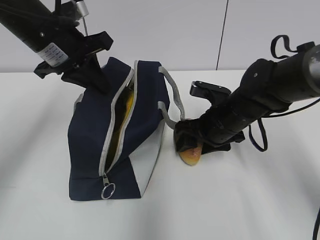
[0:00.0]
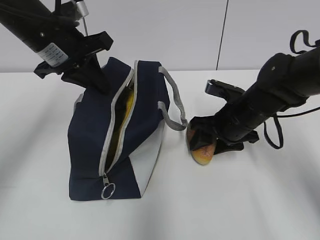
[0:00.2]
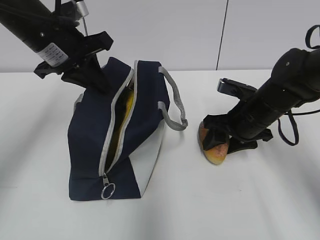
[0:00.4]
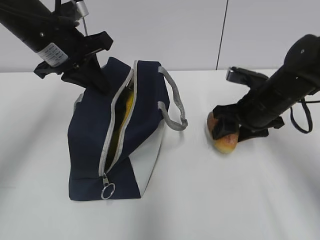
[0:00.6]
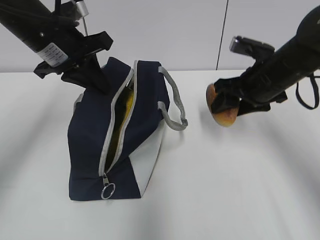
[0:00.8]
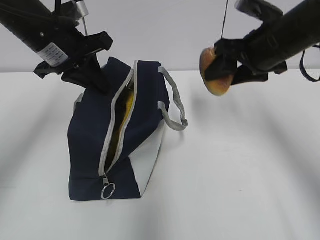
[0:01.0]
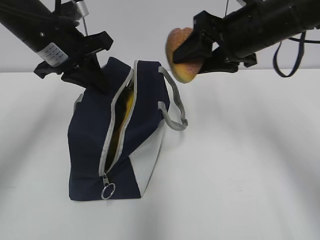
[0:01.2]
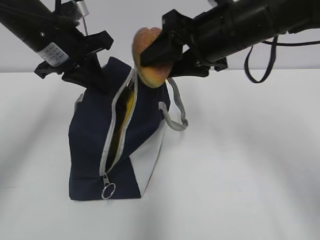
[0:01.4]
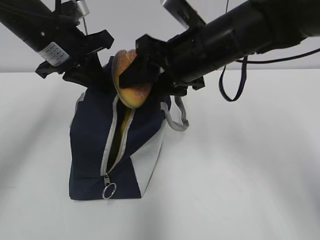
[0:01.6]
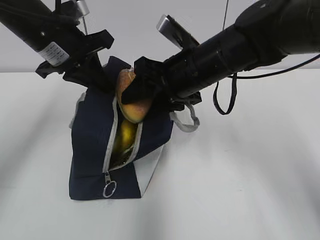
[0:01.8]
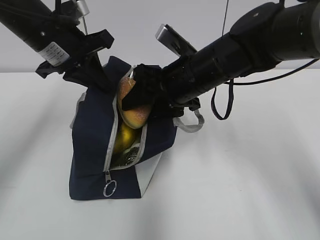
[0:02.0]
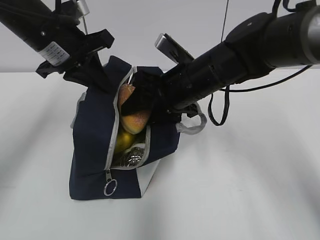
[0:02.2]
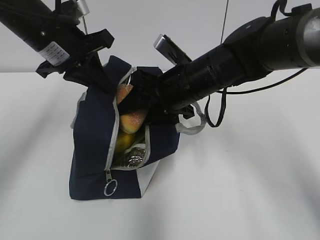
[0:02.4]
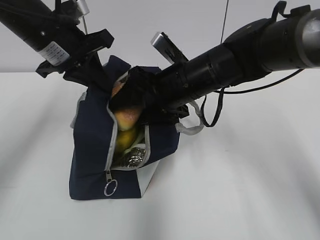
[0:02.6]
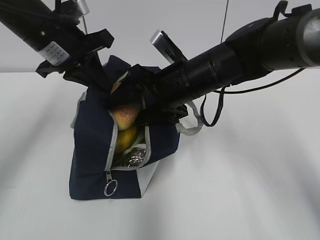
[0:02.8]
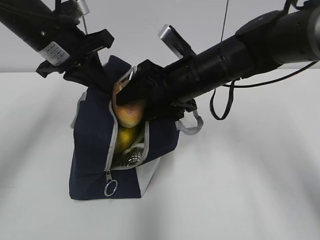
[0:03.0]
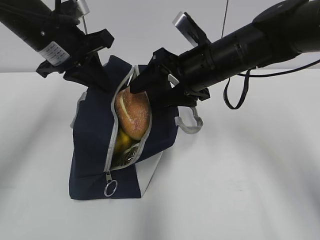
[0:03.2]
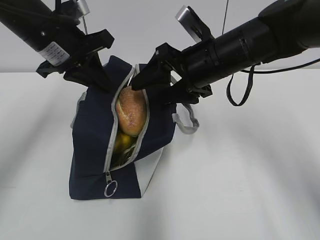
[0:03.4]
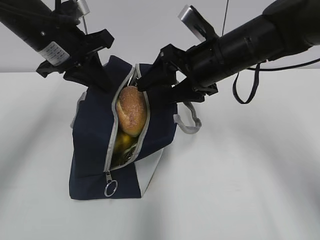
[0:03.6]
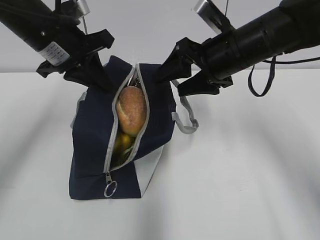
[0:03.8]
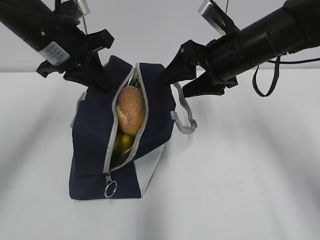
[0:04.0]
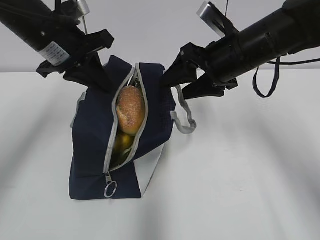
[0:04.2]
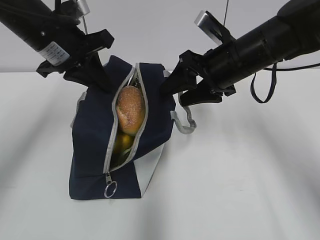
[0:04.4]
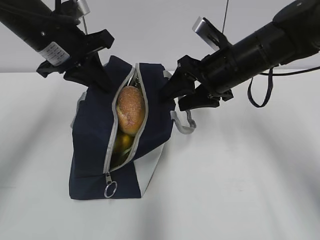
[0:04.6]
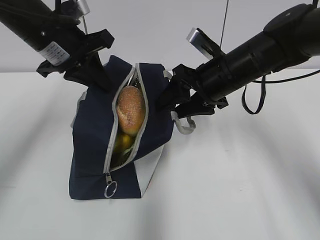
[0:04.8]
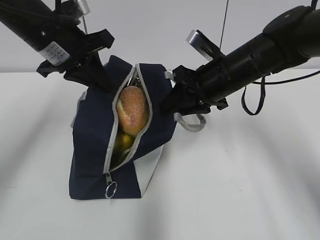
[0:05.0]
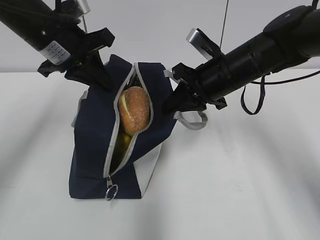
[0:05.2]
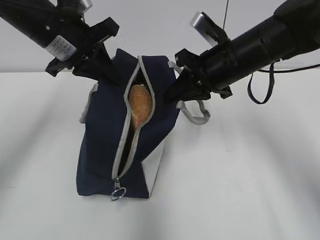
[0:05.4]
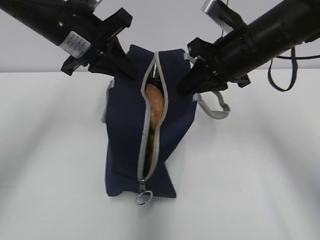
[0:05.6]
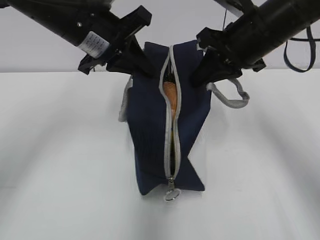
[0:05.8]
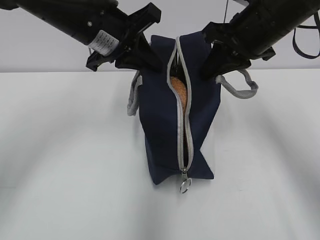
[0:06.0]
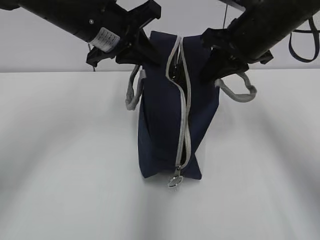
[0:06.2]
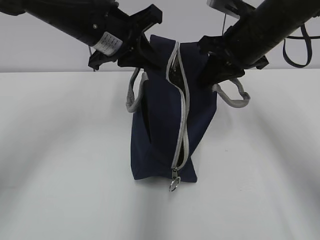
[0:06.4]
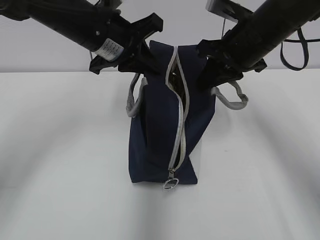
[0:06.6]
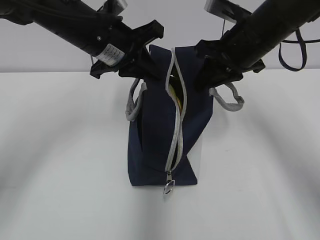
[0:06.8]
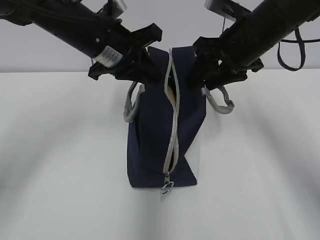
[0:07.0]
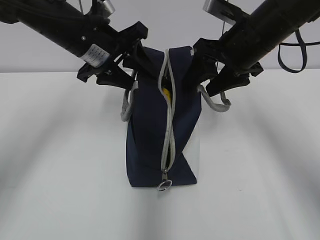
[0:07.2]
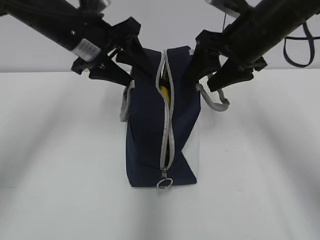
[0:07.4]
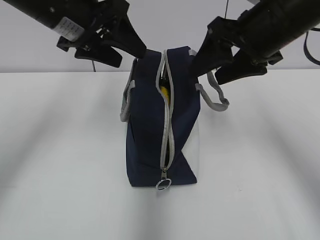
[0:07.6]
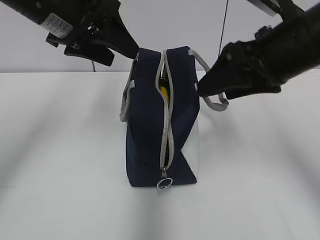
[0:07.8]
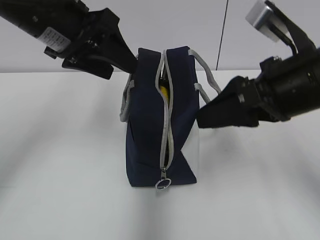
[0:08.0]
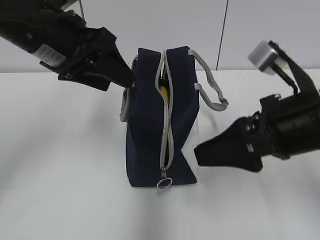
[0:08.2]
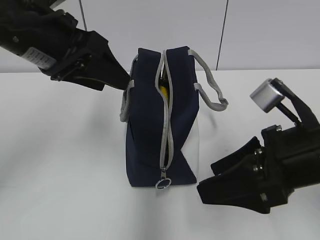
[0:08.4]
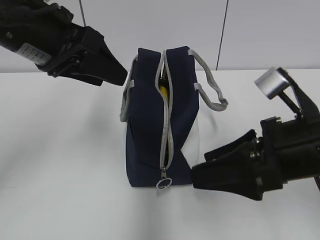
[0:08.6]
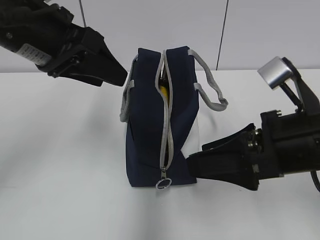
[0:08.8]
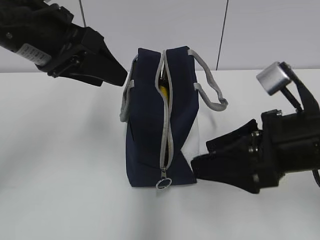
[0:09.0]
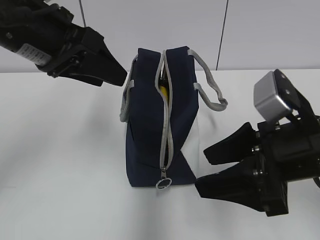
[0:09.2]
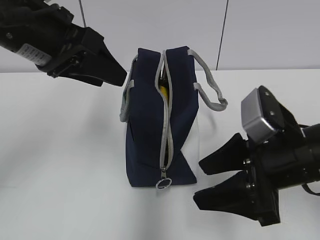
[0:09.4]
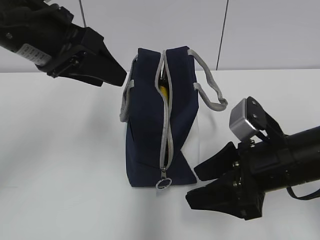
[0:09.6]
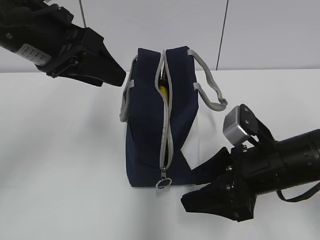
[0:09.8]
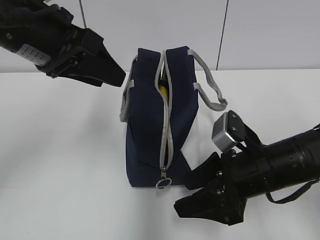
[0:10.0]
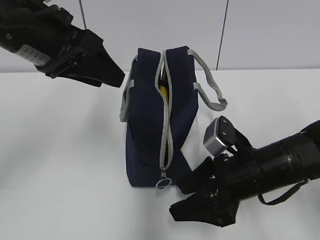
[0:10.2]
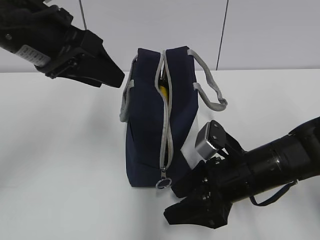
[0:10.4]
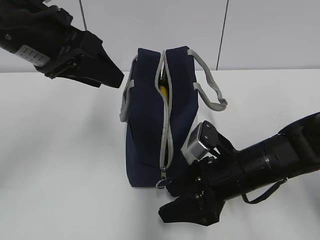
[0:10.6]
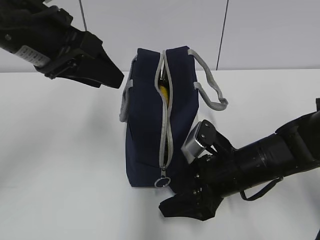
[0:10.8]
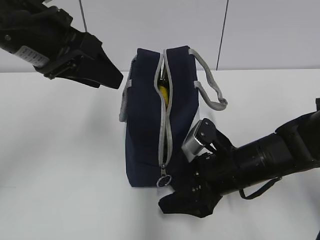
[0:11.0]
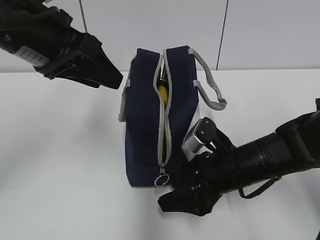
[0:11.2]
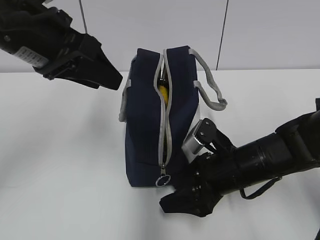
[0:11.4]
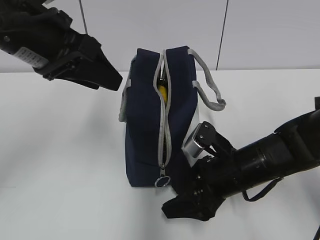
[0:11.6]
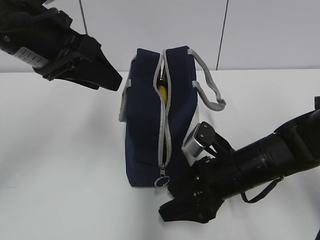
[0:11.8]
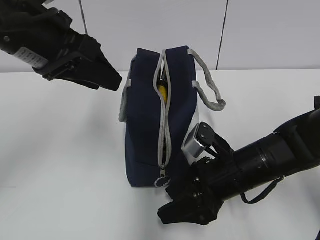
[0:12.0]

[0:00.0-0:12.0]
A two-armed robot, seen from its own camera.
0:00.0 to 0:01.6: The right gripper is displaced upward by roughly 15 cm.
0:01.6 to 0:03.0: The right gripper heads downward, covering approximately 5 cm.
0:03.0 to 0:04.4: The right gripper goes approximately 5 cm to the right.
0:04.4 to 0:06.0: The left gripper goes about 5 cm to the right. The right gripper is displaced upward by about 5 cm, and closes its fingers.
0:06.0 to 0:07.6: The left gripper opens its fingers. The right gripper opens its fingers.
0:07.6 to 0:09.0: The left gripper travels backward by roughly 5 cm. Meanwhile the right gripper heads backward and downward, covering roughly 15 cm.
0:09.0 to 0:10.4: The right gripper is displaced downward by about 10 cm.
0:10.4 to 0:12.0: The grippers move only a little.

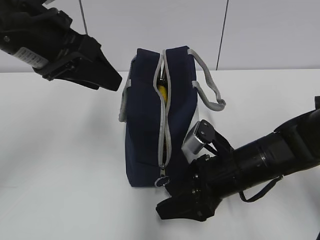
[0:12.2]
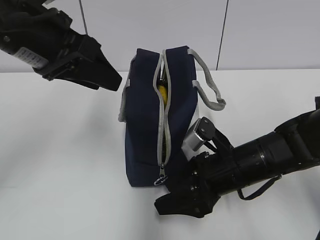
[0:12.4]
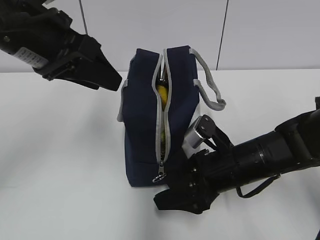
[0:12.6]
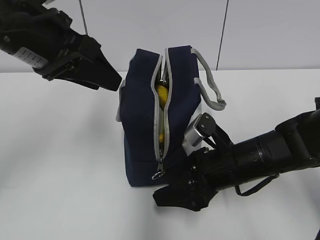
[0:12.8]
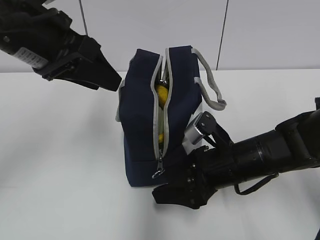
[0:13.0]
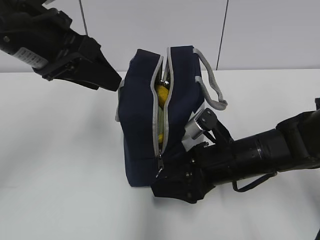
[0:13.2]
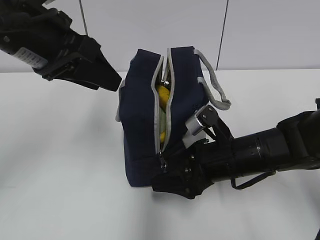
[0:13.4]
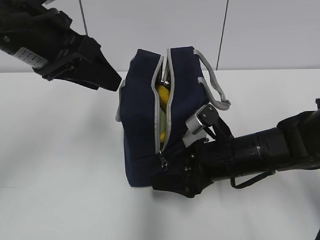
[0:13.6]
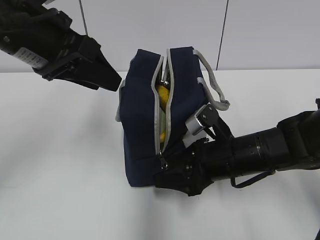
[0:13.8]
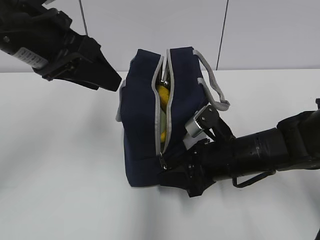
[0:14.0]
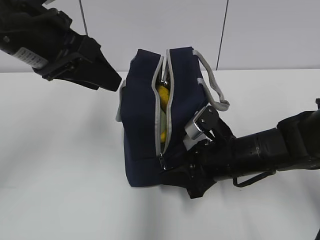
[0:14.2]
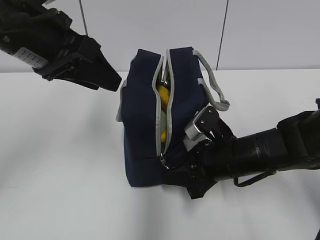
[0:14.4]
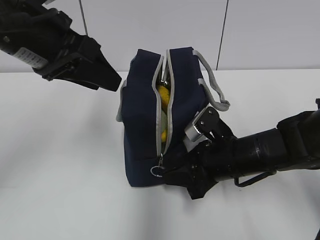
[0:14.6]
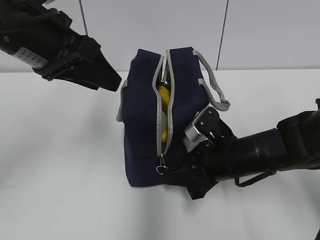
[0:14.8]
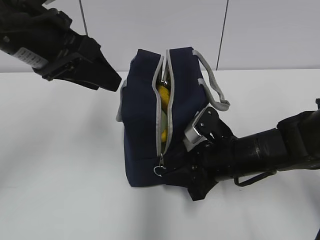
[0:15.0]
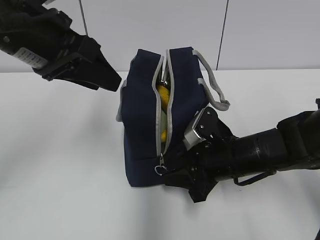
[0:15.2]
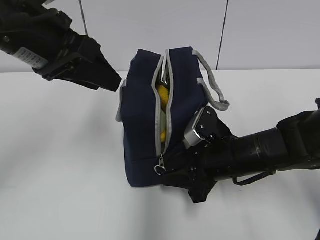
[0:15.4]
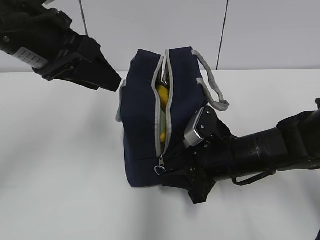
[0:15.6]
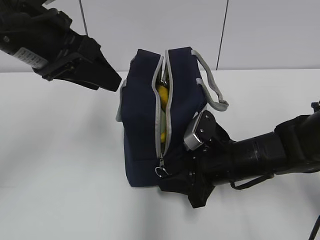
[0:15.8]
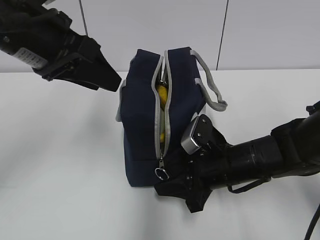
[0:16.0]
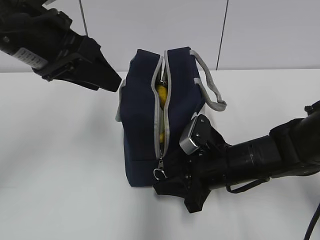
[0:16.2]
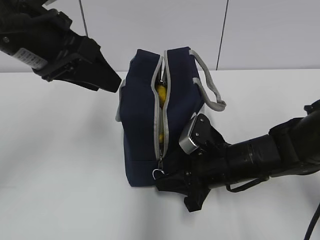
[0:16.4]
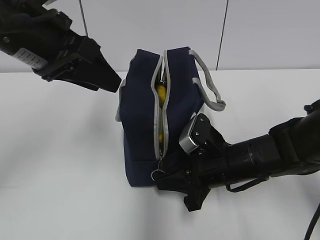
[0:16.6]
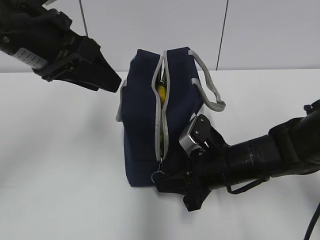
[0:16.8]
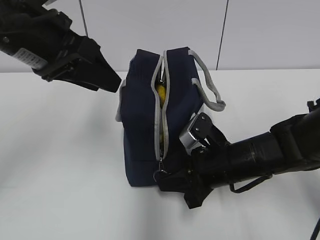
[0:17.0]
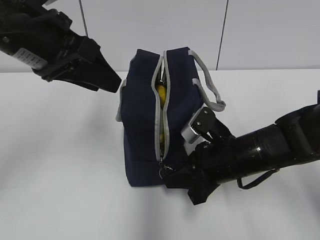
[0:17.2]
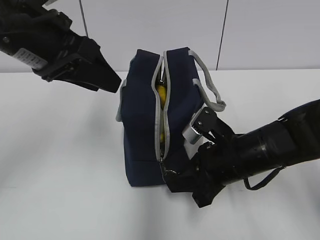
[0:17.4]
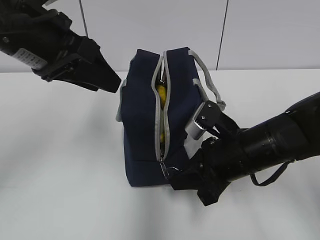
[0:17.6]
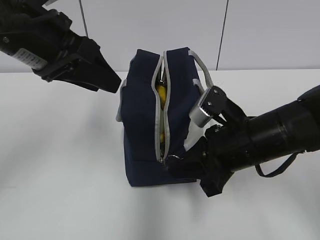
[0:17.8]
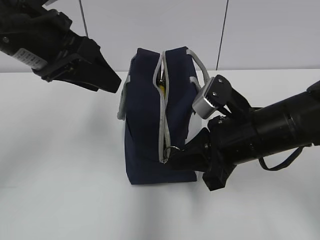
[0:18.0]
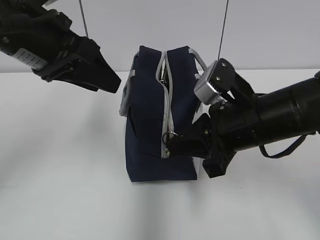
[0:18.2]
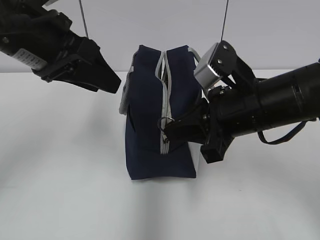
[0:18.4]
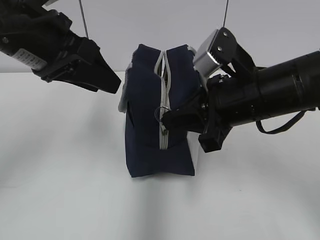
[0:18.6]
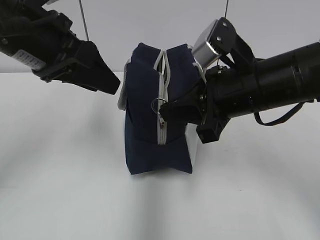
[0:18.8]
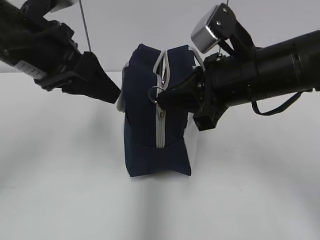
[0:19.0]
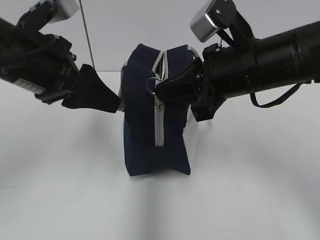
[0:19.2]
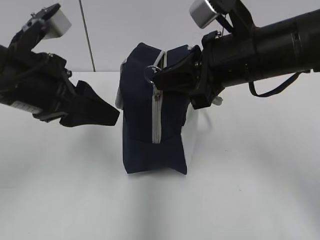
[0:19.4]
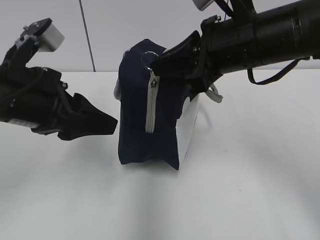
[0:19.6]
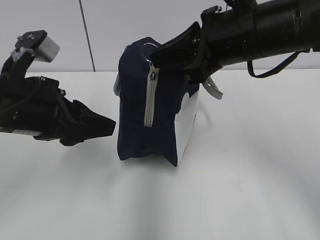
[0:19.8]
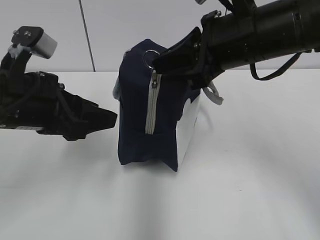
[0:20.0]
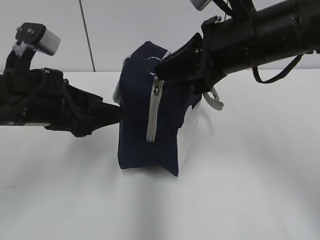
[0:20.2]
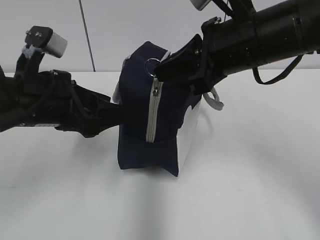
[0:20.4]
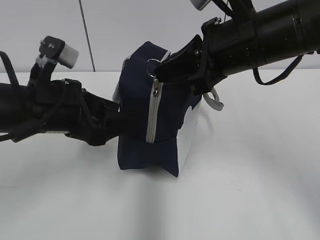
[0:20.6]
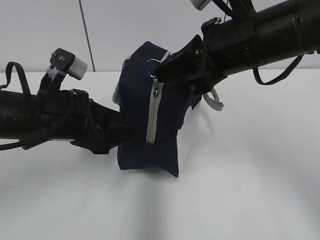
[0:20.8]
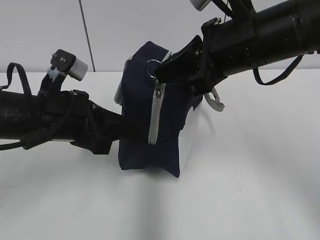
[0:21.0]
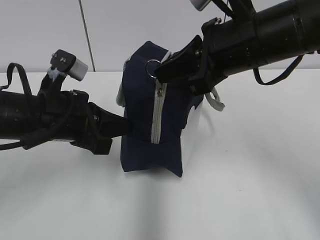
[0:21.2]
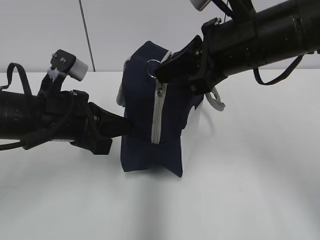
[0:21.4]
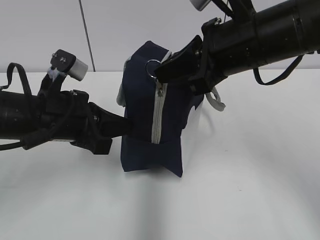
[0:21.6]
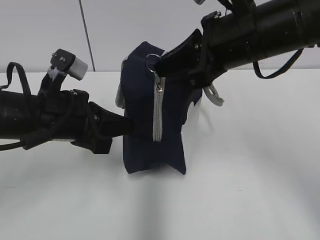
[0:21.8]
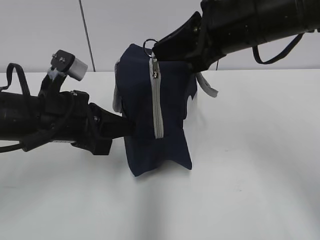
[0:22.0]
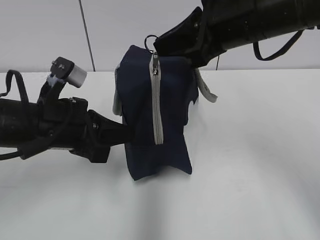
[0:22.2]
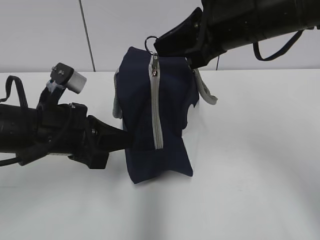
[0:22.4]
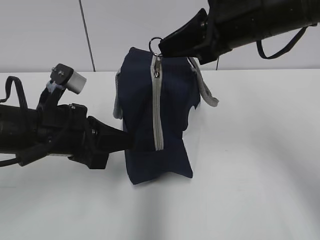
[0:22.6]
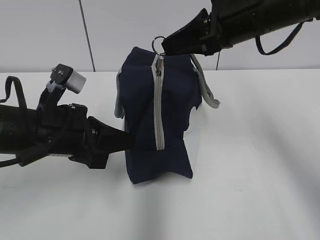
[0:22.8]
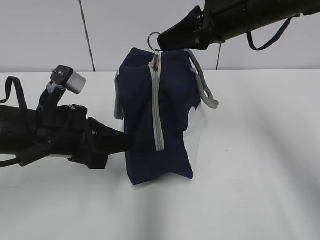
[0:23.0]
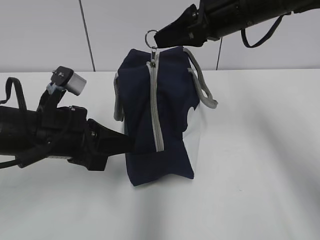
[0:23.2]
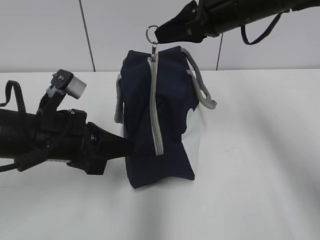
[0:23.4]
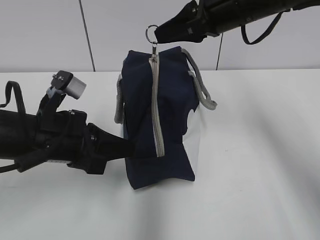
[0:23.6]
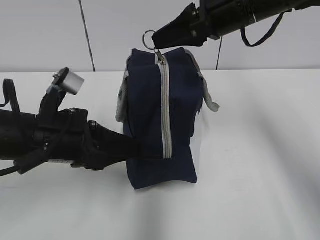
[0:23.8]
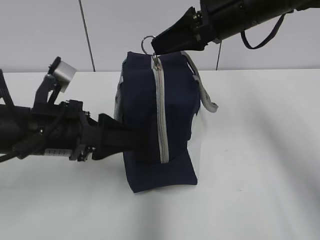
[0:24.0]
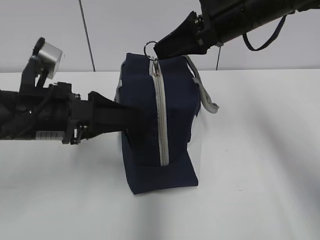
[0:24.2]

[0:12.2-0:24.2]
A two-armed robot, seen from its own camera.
0:12.2 to 0:15.2: The grippers move only a little.
0:15.2 to 0:16.6: The right gripper closes its fingers.
0:16.6 to 0:18.2: The right gripper moves upward, roughly 10 cm.
0:18.2 to 0:19.8: The right gripper heads upward, covering roughly 10 cm; the left gripper is displaced downward by approximately 5 cm.
0:19.8 to 0:21.2: The left gripper shifts by approximately 5 cm, and closes its fingers.
0:21.2 to 0:22.6: There are only small adjustments of the grippers.
0:22.6 to 0:24.2: The left gripper opens.
